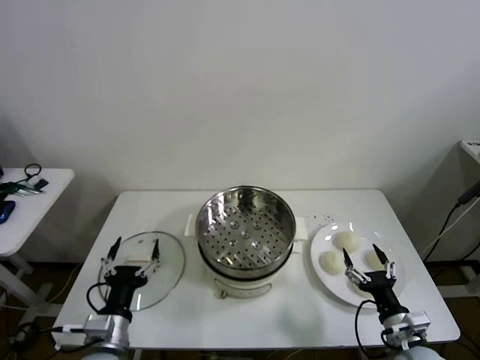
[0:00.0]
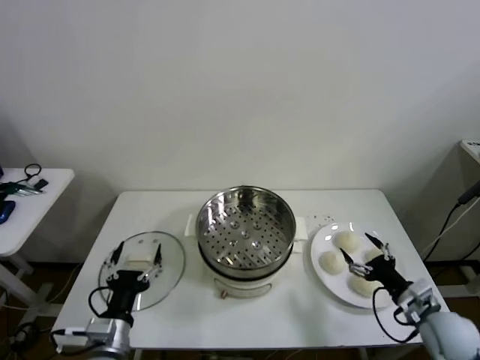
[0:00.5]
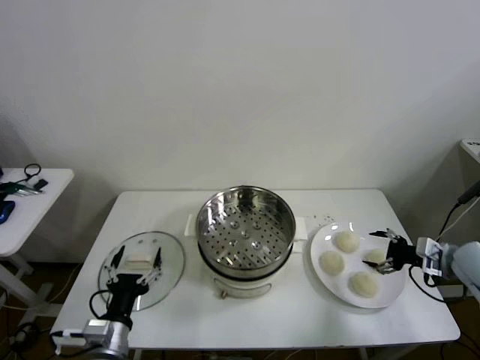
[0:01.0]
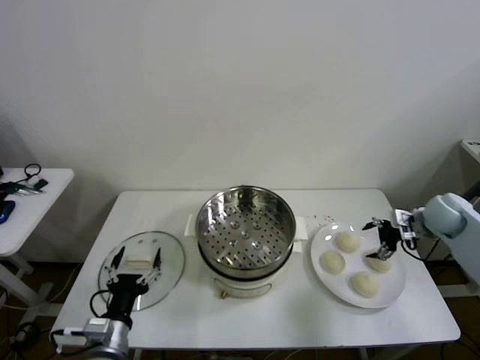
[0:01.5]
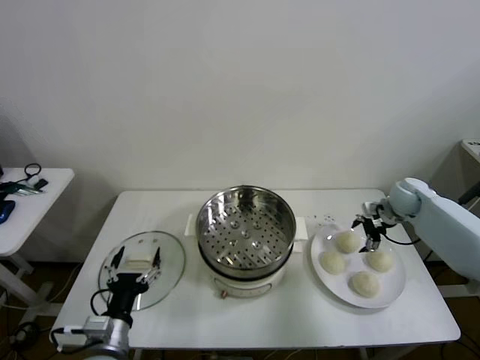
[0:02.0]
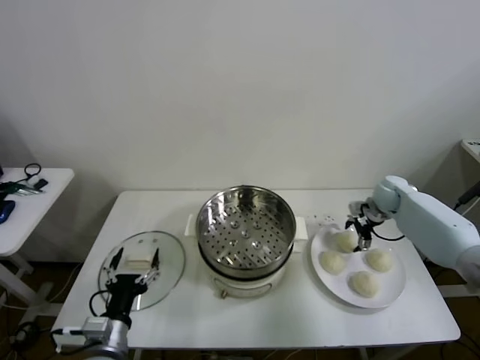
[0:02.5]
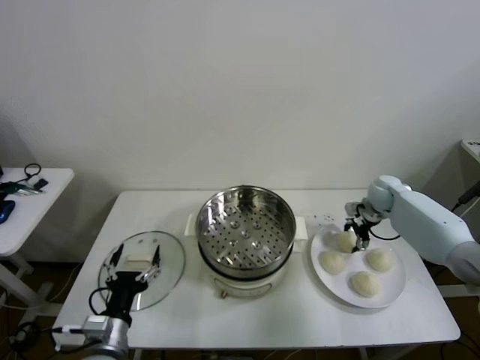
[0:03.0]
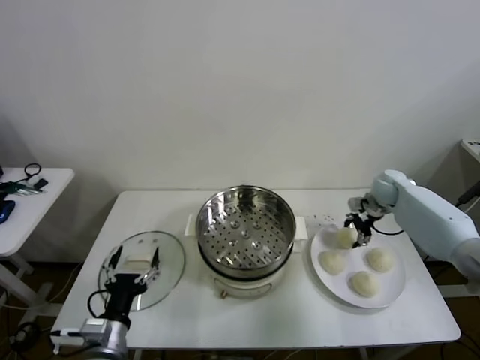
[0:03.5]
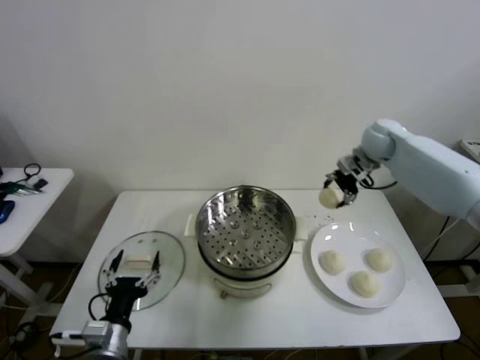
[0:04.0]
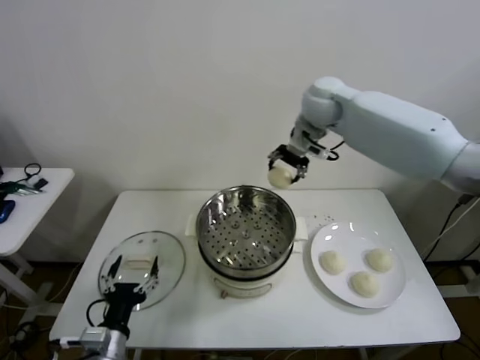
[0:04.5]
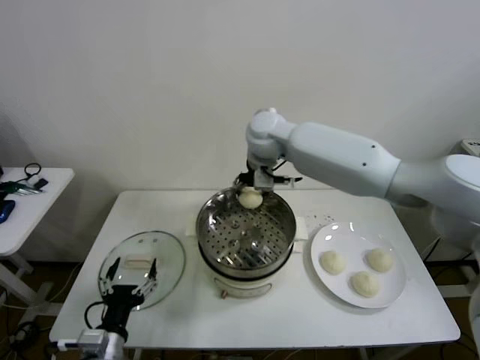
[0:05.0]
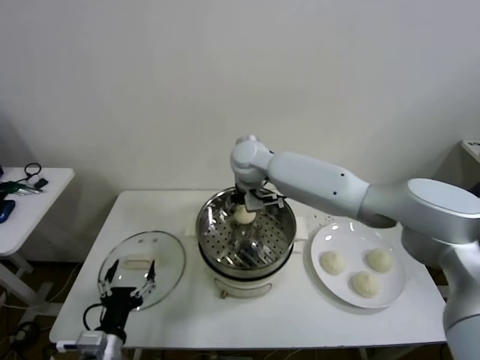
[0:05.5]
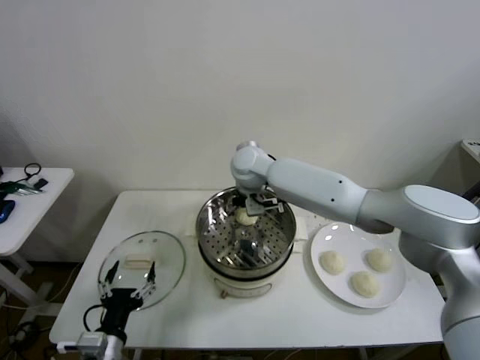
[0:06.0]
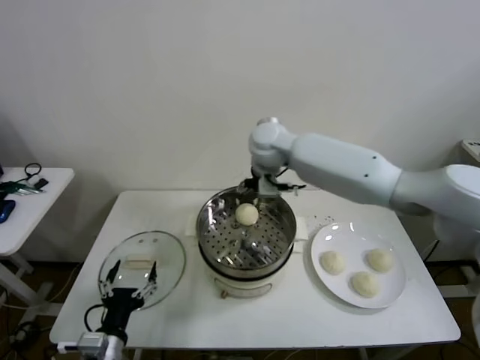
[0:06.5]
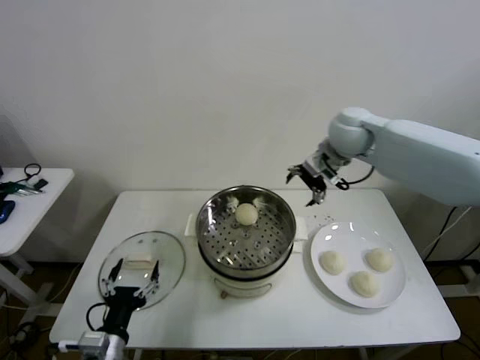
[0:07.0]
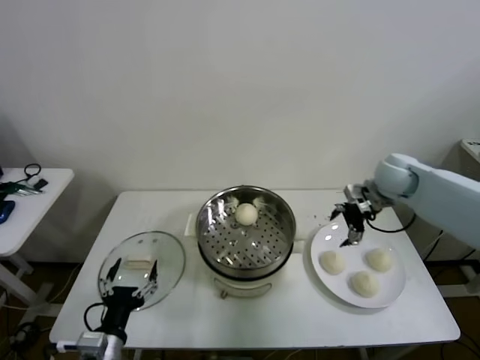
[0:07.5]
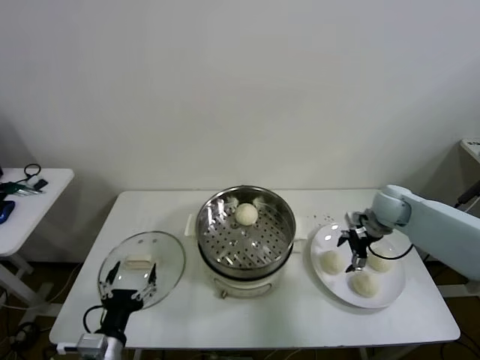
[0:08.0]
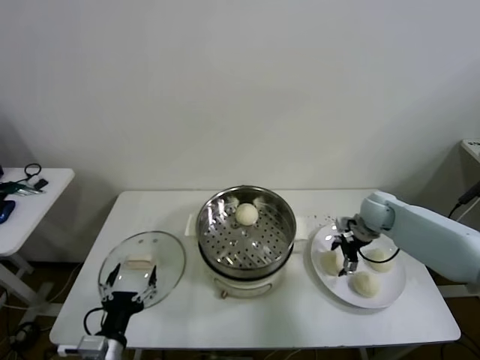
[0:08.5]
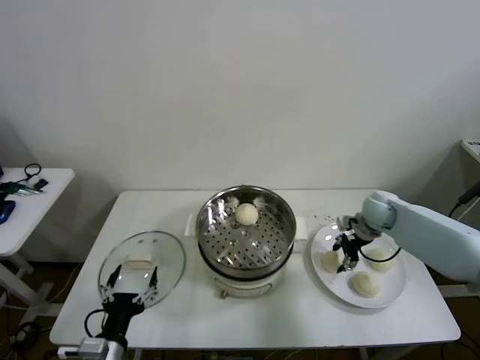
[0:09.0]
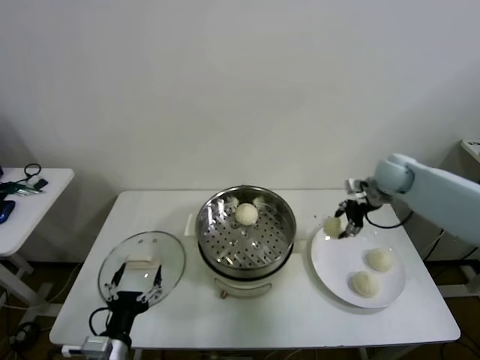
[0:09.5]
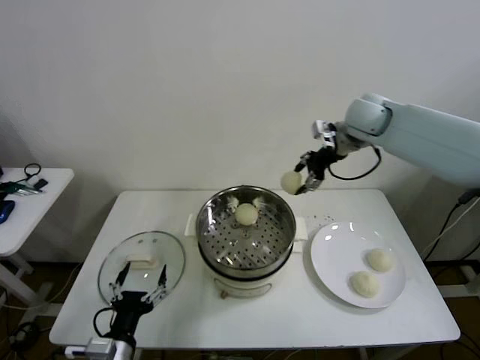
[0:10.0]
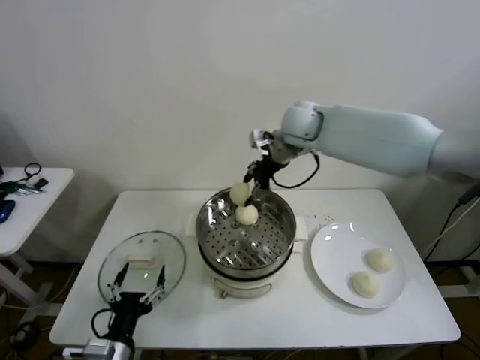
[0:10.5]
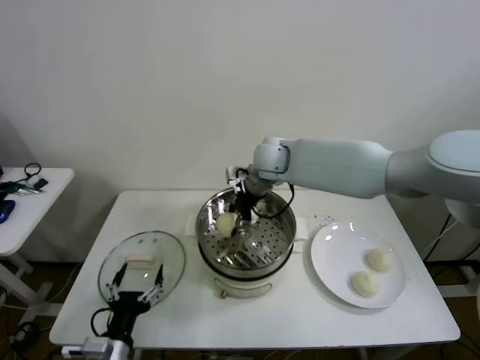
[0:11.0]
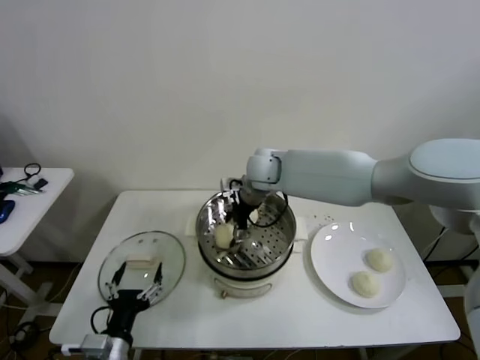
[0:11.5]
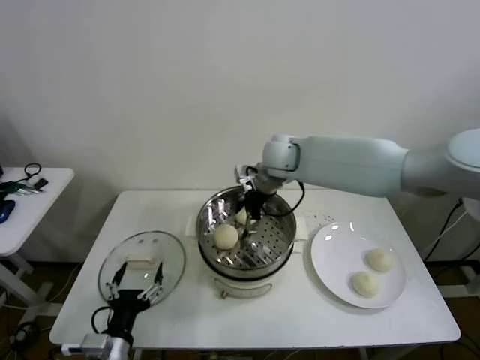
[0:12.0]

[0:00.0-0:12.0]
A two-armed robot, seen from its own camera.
Step, 0:00.0 to 0:03.0: Grasp the baozi in the plate with right gripper.
Step, 0:03.5 to 0:05.5: Place the baozi on the steamer with right gripper.
Step, 0:06.0 to 0:08.5: Grasp the baozi in the plate with right gripper.
Step, 0:09.0 to 0:11.0: Place the baozi on the steamer with right gripper.
0:02.0 to 0:04.0: The right gripper moves upward and to the left, roughly 20 cm, and closes its fingers.
0:04.0 to 0:06.0: The right gripper goes about 30 cm to the left, and opens its fingers.
0:06.0 to 0:08.0: The right gripper goes roughly 35 cm to the right.
0:08.0 to 0:10.0: The right gripper goes about 25 cm upward and to the left, and closes its fingers.
0:10.0 to 0:12.0: The right gripper heads to the left and downward, covering about 15 cm, and opens.

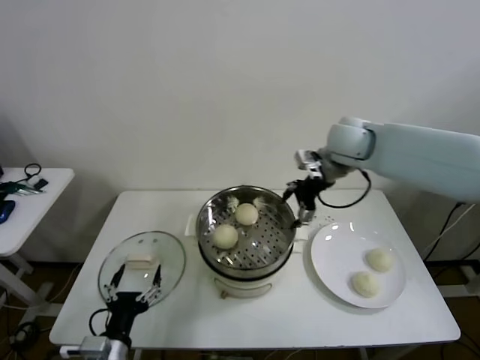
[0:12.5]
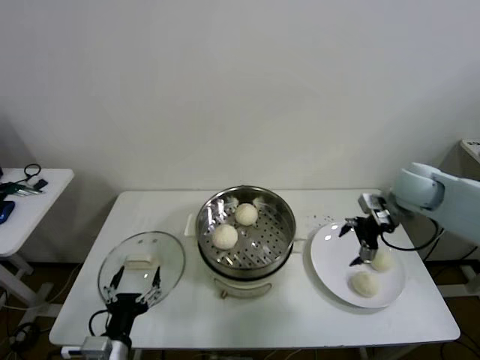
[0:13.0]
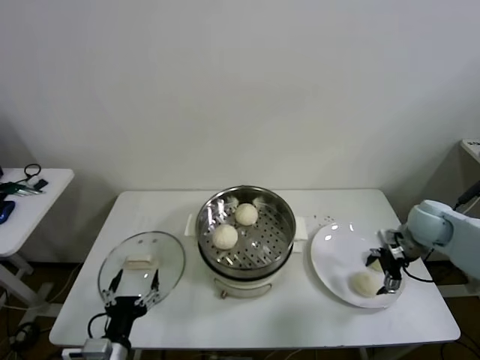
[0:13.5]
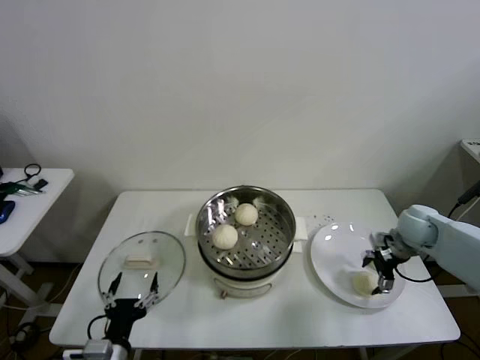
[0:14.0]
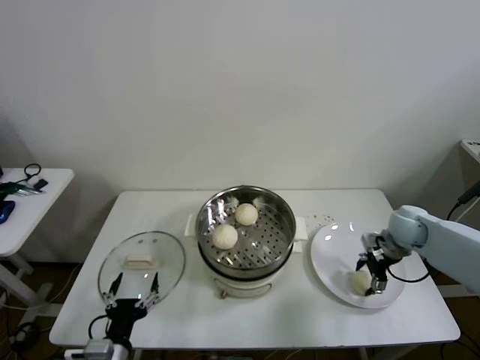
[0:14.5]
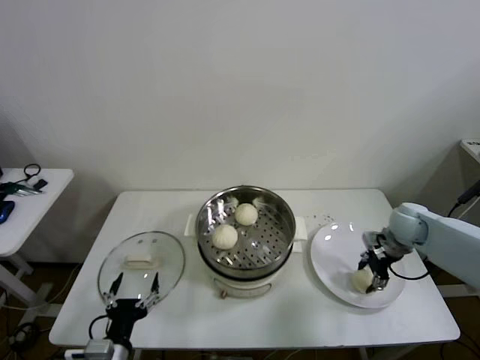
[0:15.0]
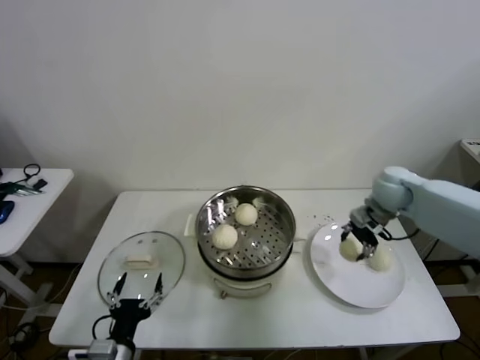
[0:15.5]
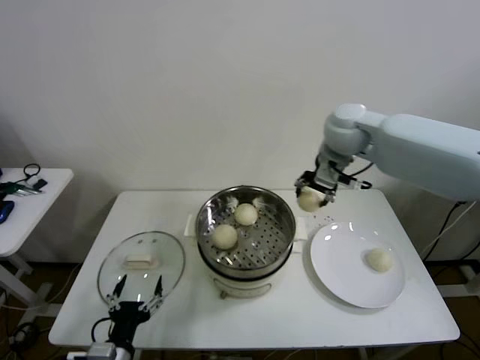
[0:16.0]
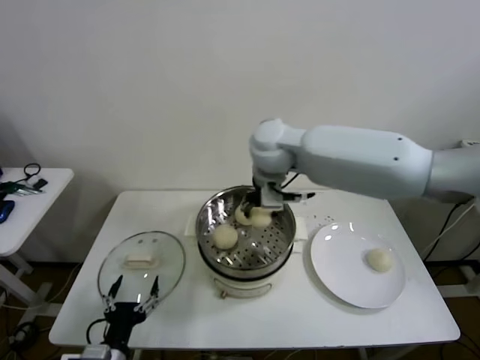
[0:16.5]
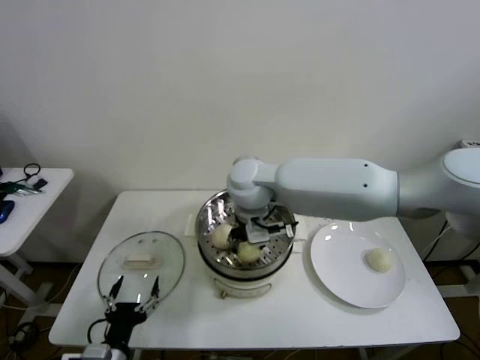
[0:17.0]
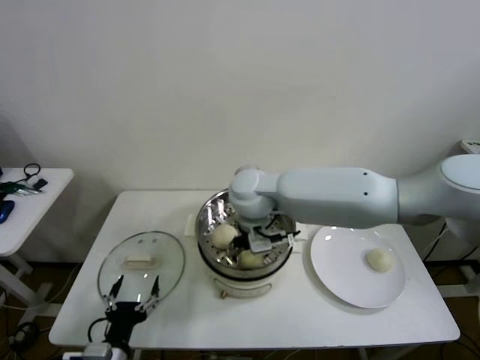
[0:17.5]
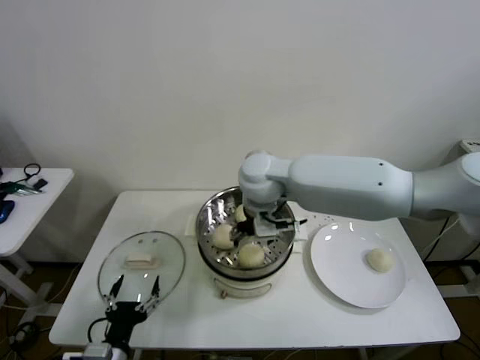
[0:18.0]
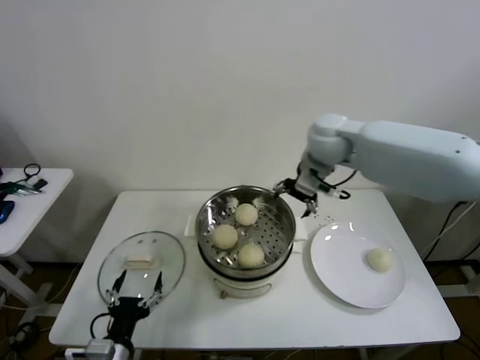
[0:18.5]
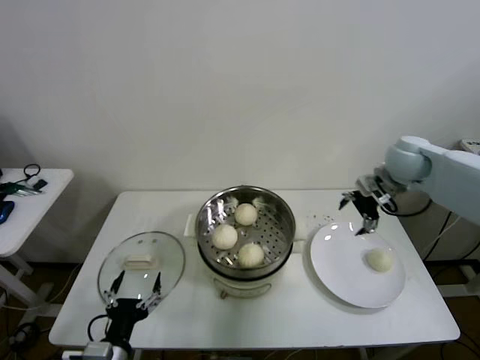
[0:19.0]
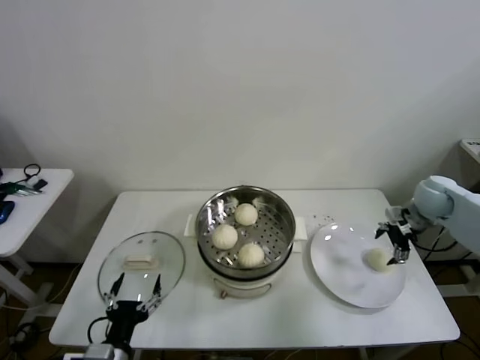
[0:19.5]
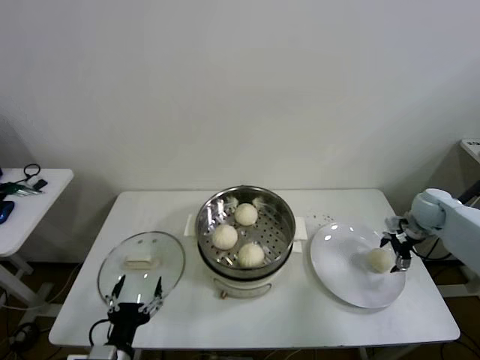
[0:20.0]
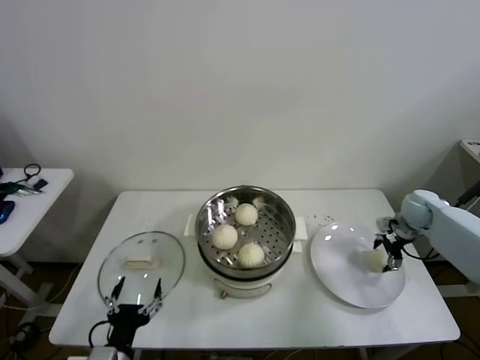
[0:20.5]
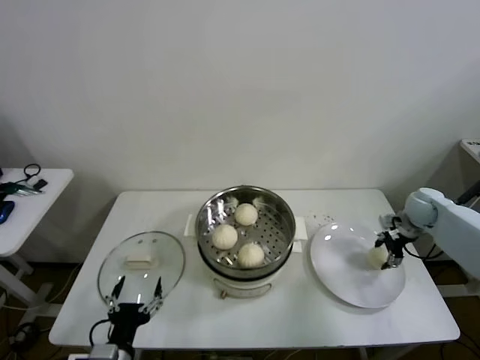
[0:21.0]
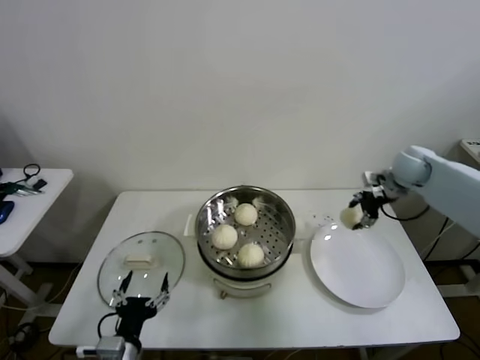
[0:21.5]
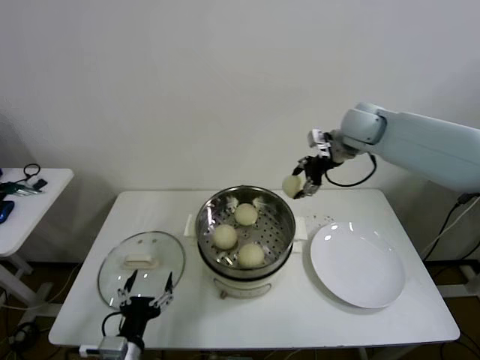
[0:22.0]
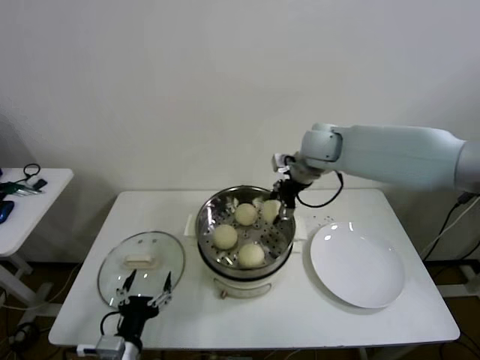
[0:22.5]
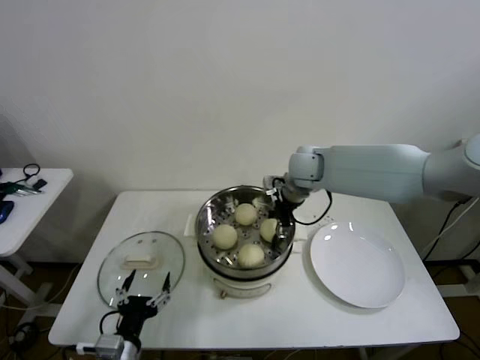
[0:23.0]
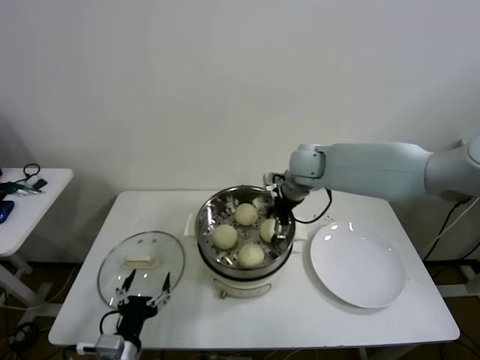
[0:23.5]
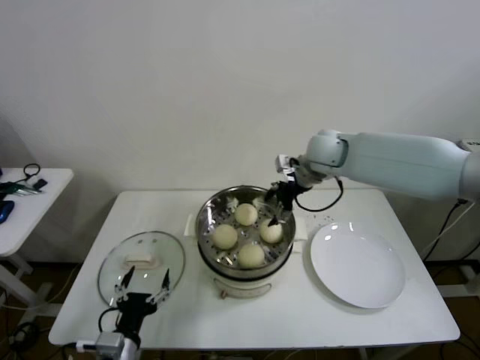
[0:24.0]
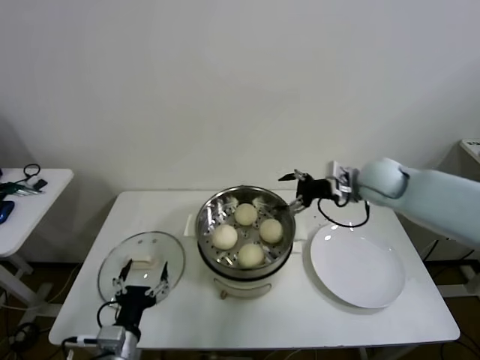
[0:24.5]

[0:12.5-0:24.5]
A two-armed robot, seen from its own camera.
Step, 0:12.5 to 0:14.5: Grasp the baozi in the plate with right gripper.
Step, 0:15.0 to 0:17.0: Place the baozi on the steamer with right gripper.
Step, 0:18.0 to 0:20.5: Grasp the baozi in the plate with right gripper.
Step, 0:21.0 to 0:23.0: Place the baozi on the steamer with right gripper.
0:12.5 to 0:14.5: The right gripper moves downward and to the right, roughly 25 cm, and closes.
0:14.5 to 0:16.5: The right gripper moves to the left and upward, approximately 40 cm, and closes.
0:16.5 to 0:18.5: The right gripper is displaced to the right by some 15 cm, and opens.
0:18.5 to 0:20.5: The right gripper goes approximately 35 cm to the right and downward.
0:20.5 to 0:22.5: The right gripper heads to the left and upward, covering roughly 35 cm, and closes.
0:22.5 to 0:24.5: The right gripper travels to the right, backward and downward by some 15 cm, and opens its fingers.

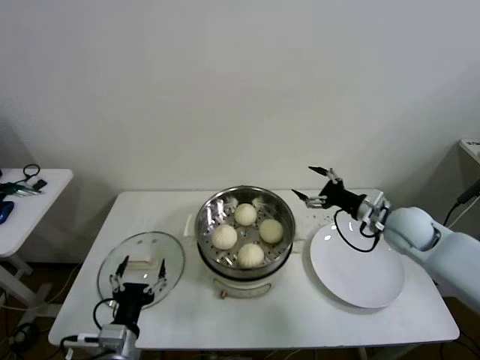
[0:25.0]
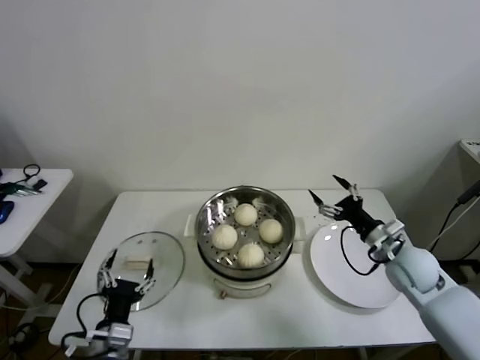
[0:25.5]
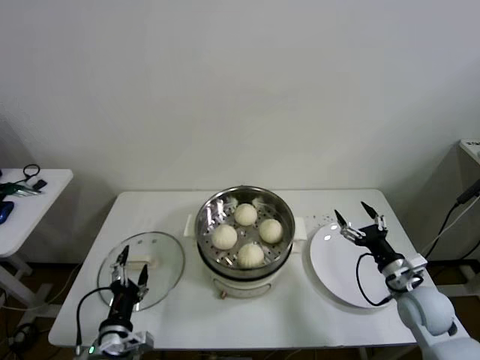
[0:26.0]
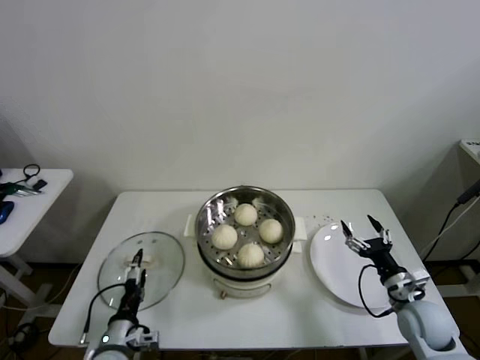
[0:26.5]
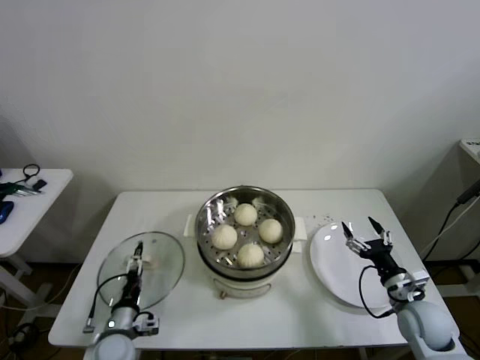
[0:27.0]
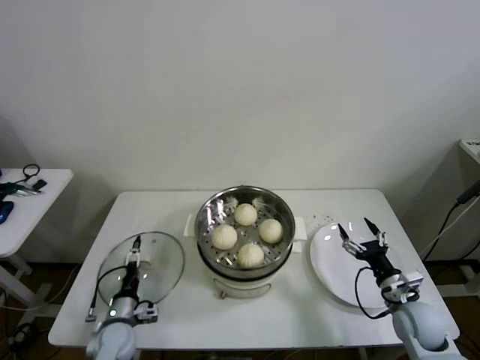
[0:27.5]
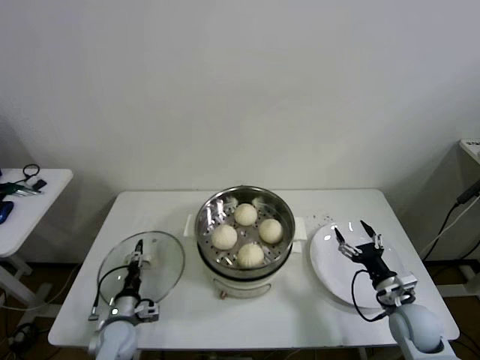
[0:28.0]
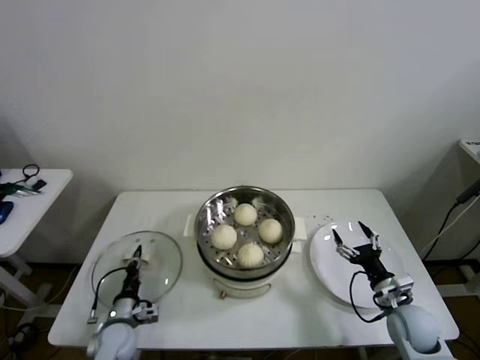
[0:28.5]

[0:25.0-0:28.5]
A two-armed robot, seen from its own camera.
Step, 0:25.0 to 0:28.0: Grasp the pot lid with left gripper.
0:25.0 to 0:27.0: The left gripper goes some 15 cm downward, forward and to the left; the right gripper travels downward and backward by some 20 cm.
0:27.0 to 0:28.5: The left gripper moves approximately 5 cm, and closes up.
